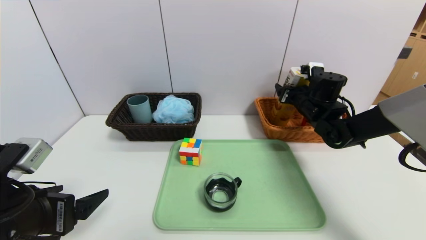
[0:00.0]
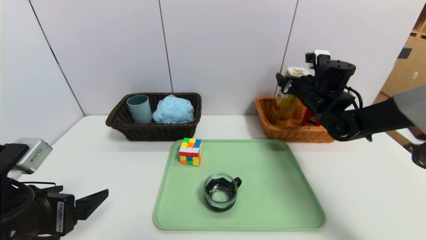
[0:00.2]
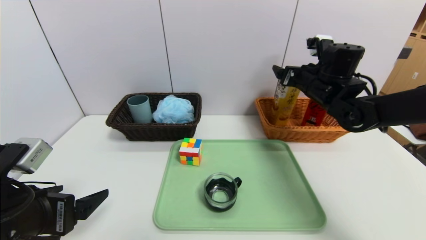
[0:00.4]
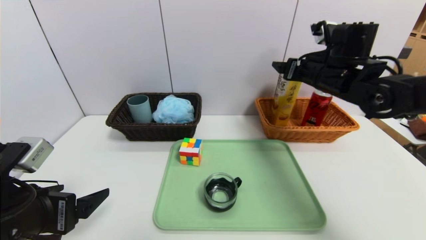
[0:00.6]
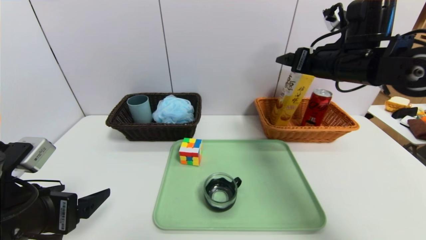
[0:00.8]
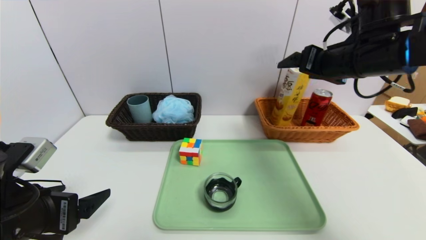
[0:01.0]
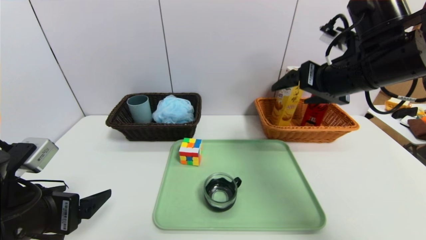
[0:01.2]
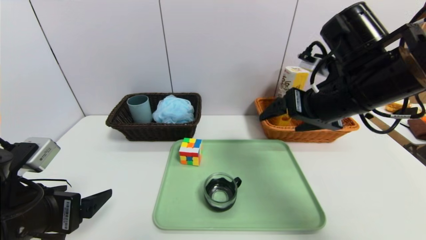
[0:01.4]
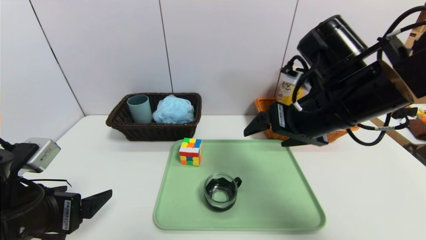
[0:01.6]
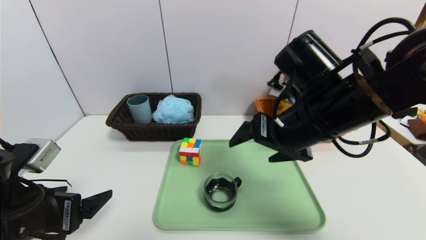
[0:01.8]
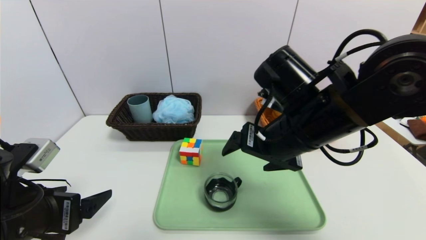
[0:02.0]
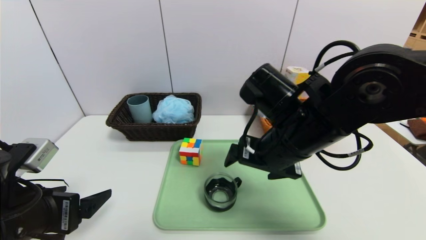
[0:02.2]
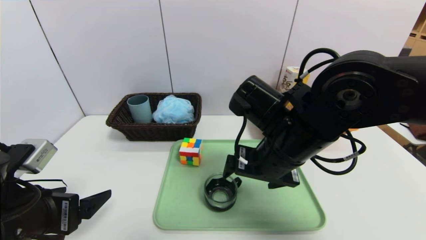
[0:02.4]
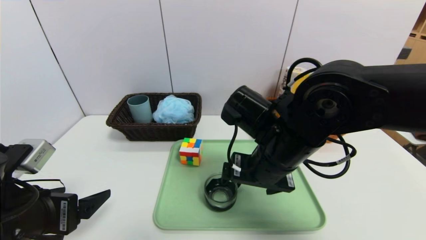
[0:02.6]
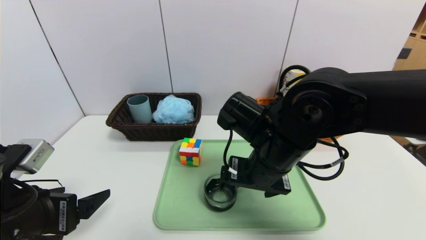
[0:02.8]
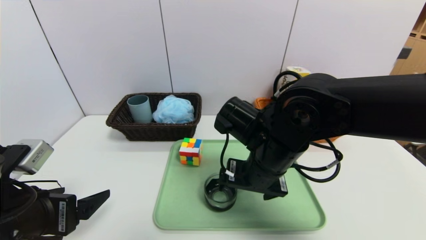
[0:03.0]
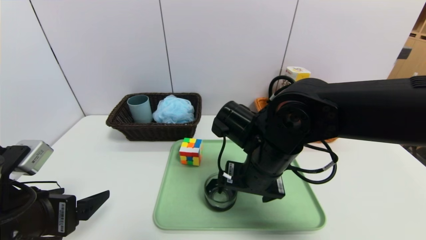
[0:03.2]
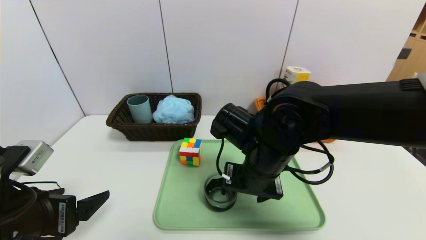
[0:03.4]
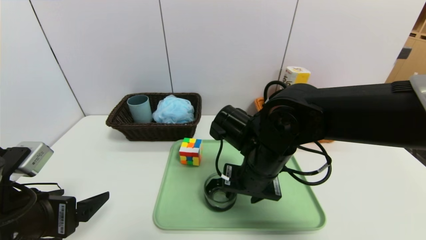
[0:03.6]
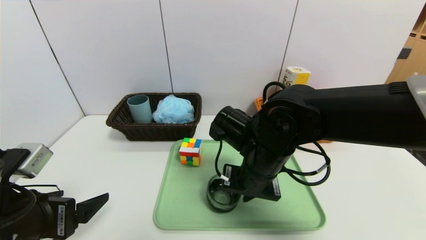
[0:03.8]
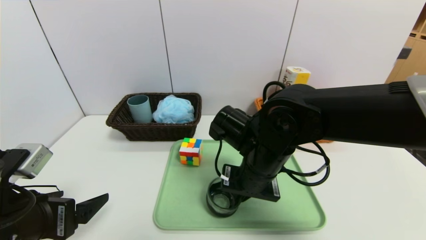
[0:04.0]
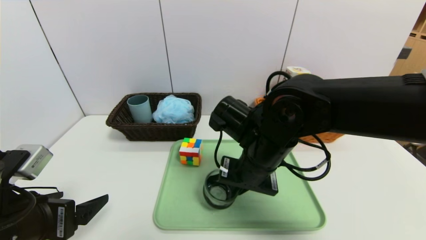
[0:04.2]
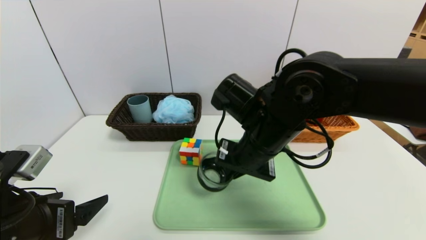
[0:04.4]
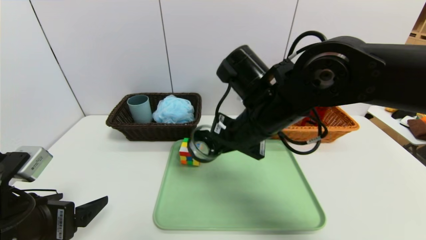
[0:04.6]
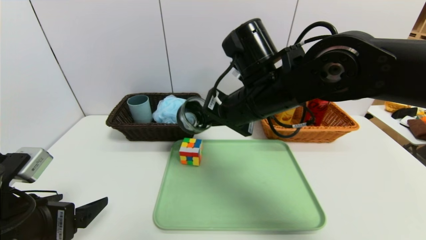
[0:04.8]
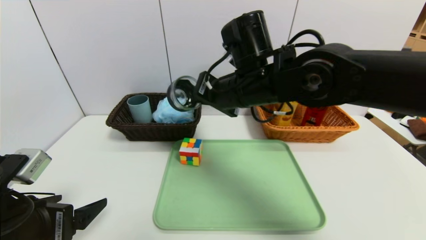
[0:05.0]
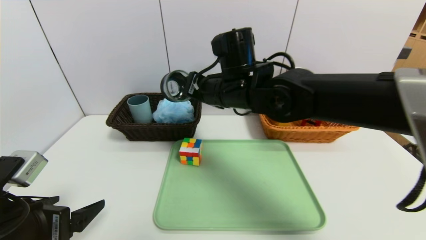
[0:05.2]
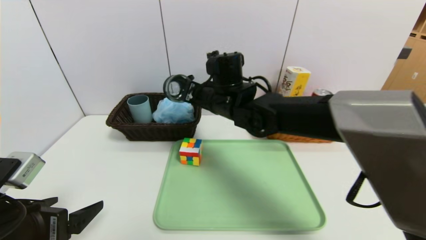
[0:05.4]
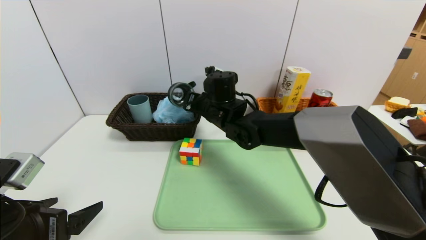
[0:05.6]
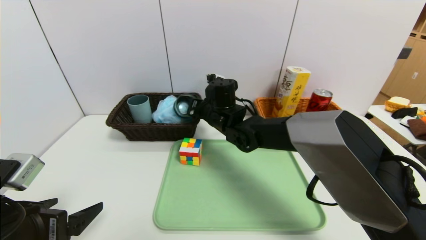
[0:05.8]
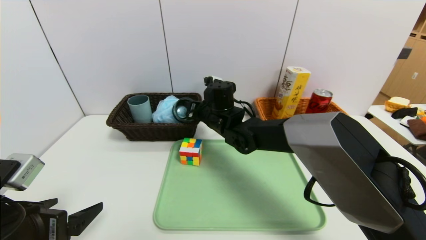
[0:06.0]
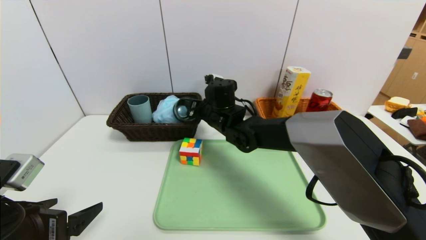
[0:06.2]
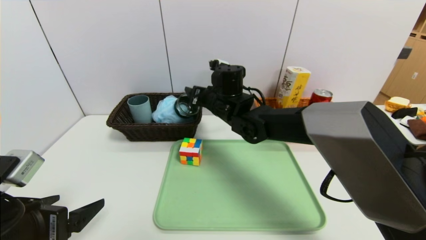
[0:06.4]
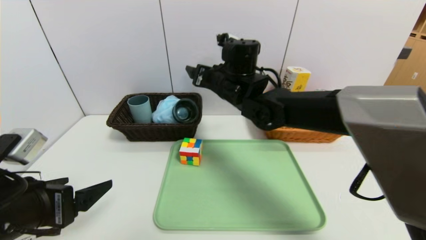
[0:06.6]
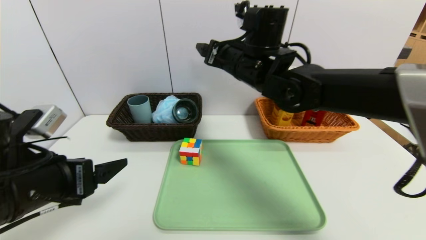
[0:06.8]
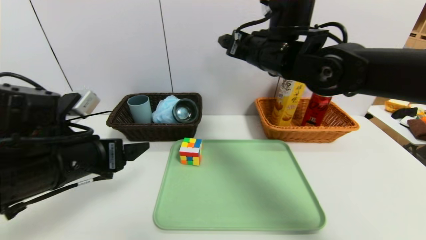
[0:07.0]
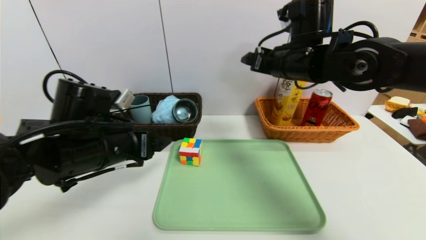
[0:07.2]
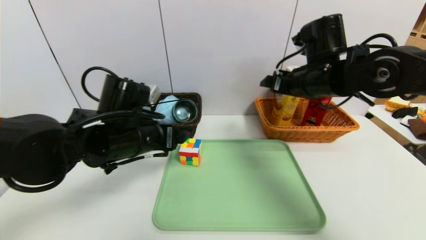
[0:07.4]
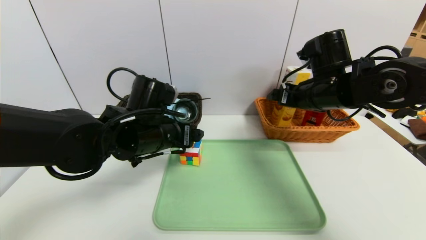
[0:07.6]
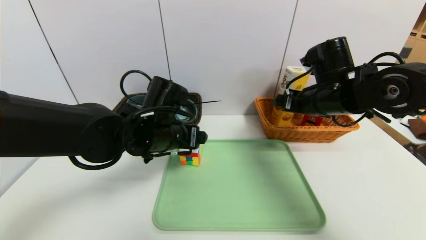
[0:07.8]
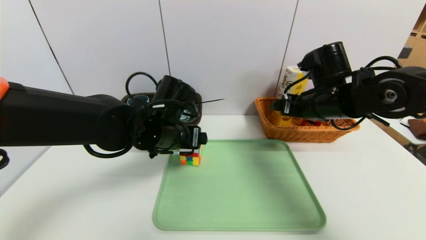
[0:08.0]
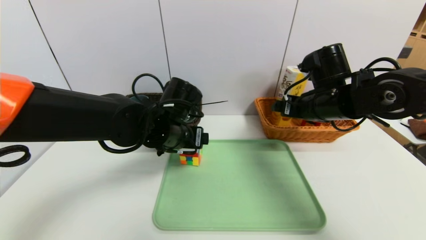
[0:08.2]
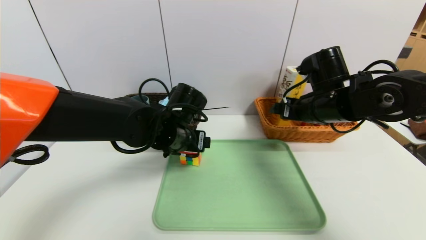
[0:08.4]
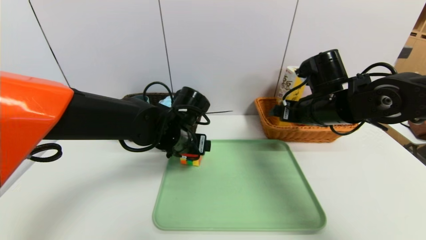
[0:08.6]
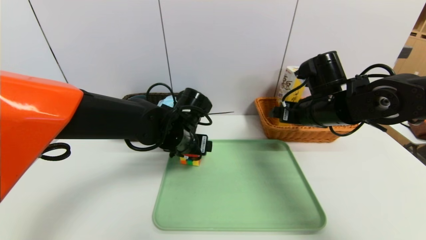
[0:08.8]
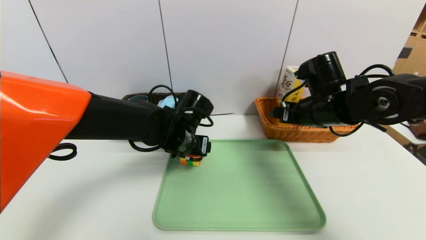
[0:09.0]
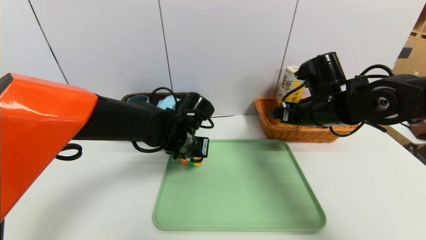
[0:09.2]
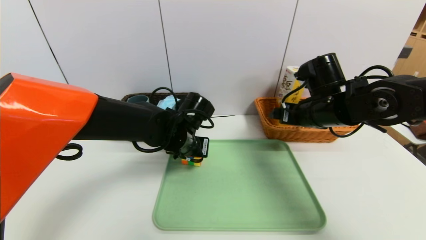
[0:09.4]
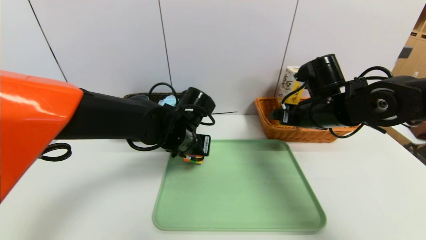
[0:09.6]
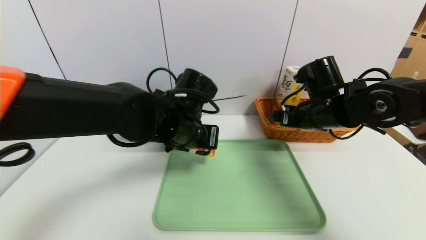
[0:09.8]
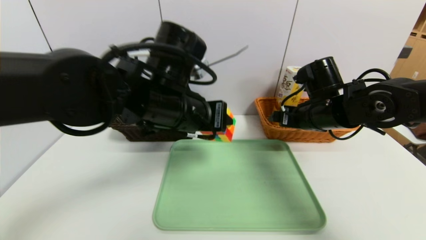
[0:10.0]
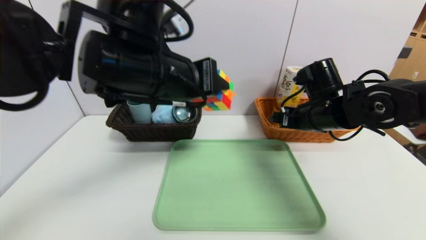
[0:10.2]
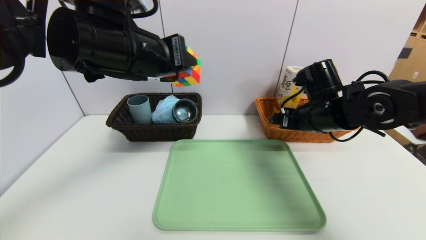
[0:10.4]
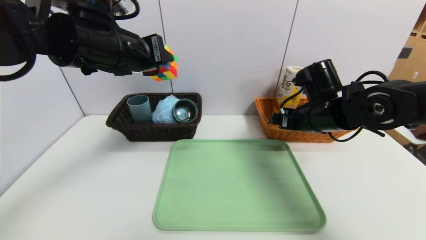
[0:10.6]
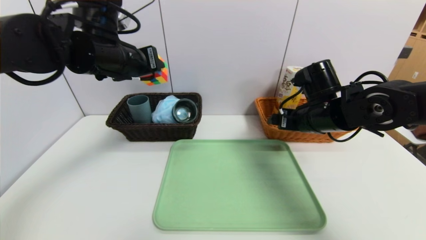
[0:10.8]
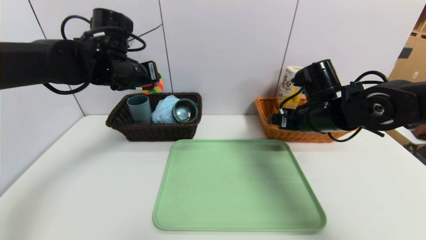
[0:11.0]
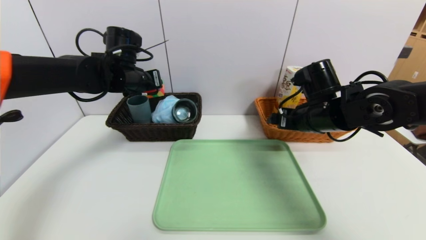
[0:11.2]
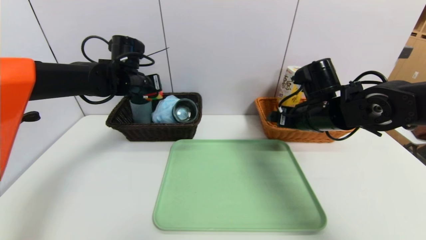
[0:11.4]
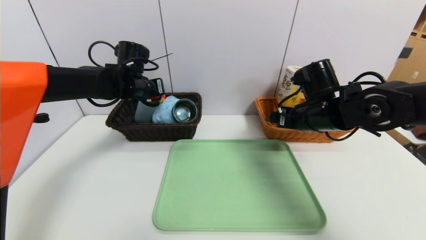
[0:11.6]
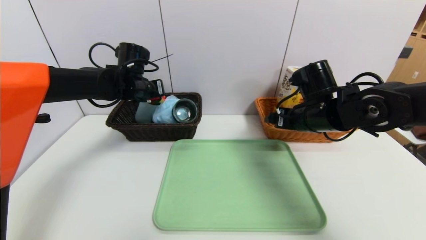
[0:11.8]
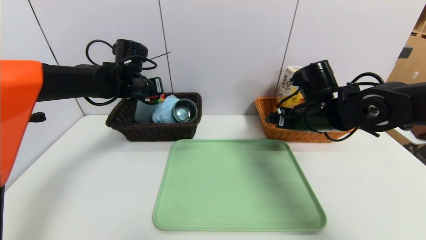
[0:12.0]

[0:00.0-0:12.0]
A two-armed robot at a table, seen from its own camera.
Task of the whole recording: place the food in the right basket with the right gripper, and place the non food items in the left basket with the left gripper.
Step, 0:00.8 to 0:07.2: Grasp the black glass cup and put it in the left basket.
0:00.0 to 0:01.6: The right gripper goes about 25 cm backward, upward and to the left.
0:01.6 to 0:03.0: The right gripper goes about 10 cm to the left and downward.
0:03.0 to 0:04.4: The right gripper closes.
0:04.4 to 0:06.0: The right gripper goes some 20 cm forward, to the left and downward, and opens.
0:06.0 to 0:07.6: The right gripper is displaced to the right and upward by some 20 cm, and opens. Meanwhile the left gripper is displaced forward and to the right by roughly 25 cm.
0:07.6 to 0:09.0: The left gripper shifts by some 10 cm.
0:09.0 to 0:10.4: The left gripper shifts approximately 20 cm upward, and closes.
0:10.4 to 0:12.0: The left gripper shifts some 20 cm forward, downward and to the left.

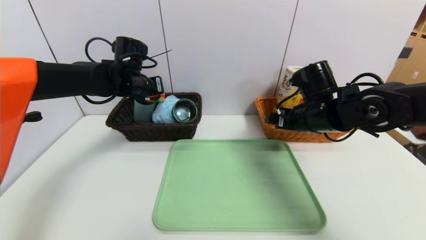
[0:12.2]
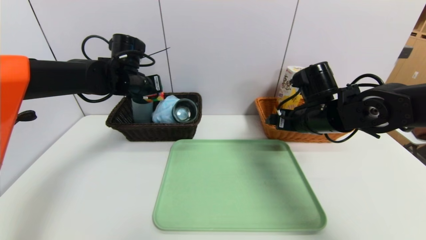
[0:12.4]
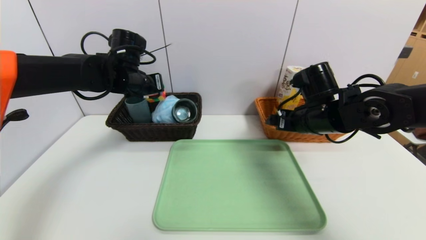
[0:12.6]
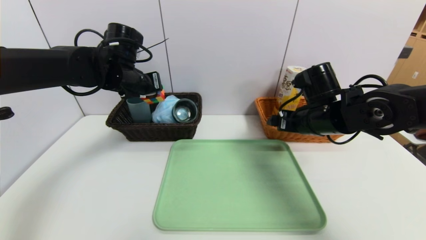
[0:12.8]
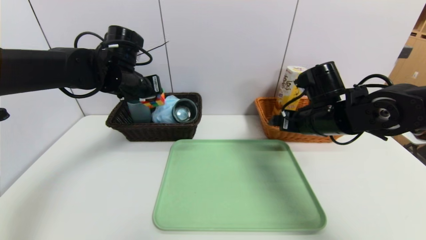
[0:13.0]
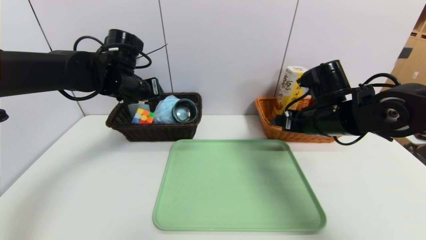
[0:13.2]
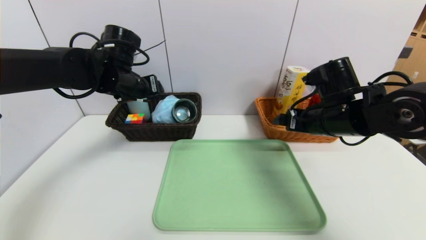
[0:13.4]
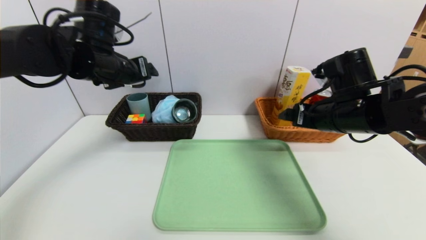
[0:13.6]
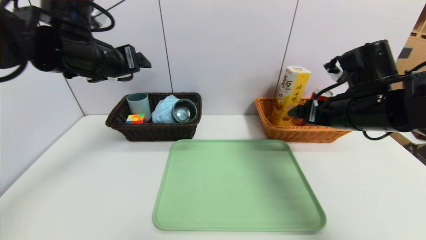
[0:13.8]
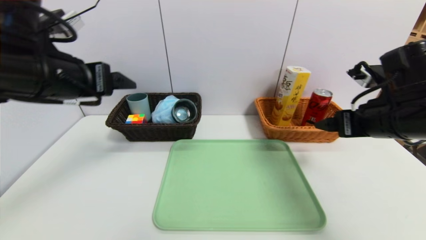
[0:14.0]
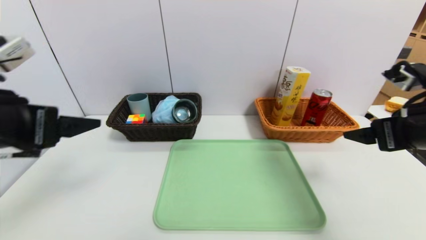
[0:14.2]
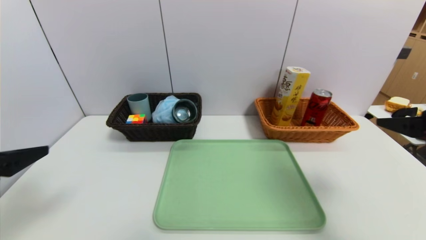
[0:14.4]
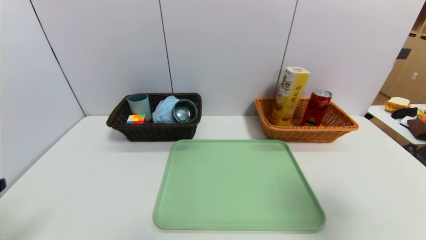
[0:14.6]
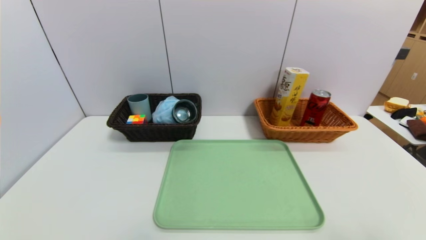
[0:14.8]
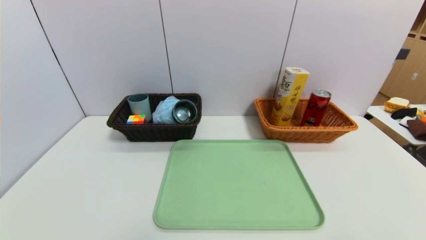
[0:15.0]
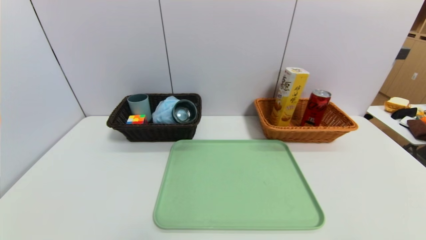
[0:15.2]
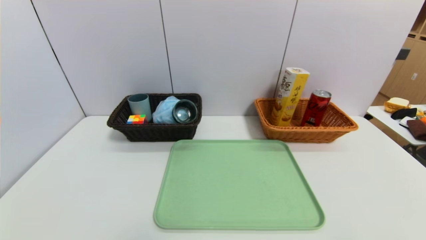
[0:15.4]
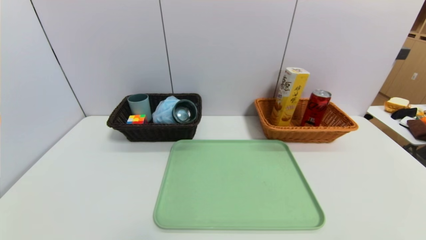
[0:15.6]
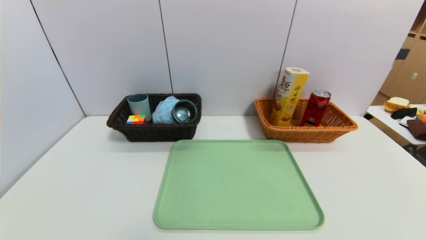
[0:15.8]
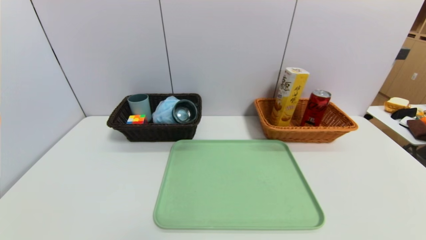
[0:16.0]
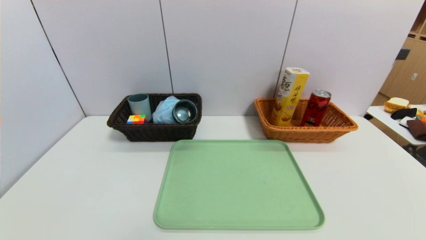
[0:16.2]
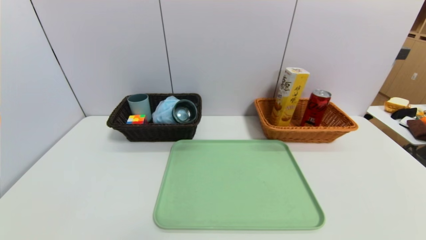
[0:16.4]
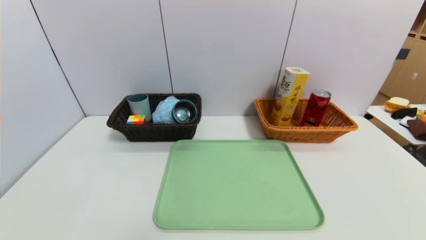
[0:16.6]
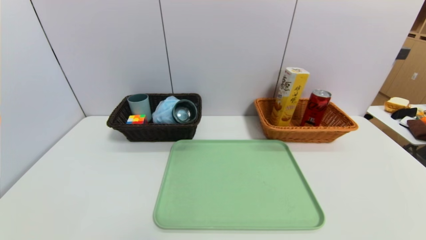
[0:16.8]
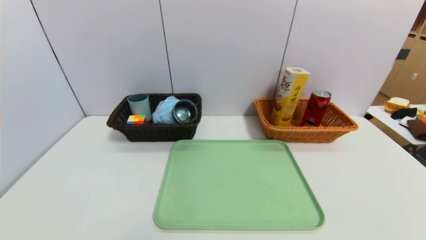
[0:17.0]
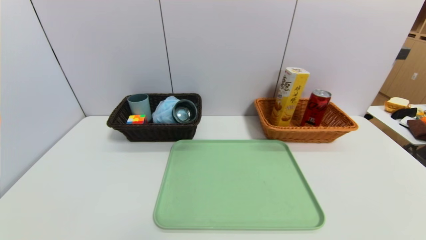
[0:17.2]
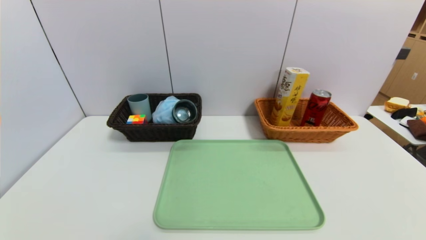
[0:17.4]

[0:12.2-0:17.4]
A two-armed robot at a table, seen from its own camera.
Task of the whole recording: place the food in the right basket with the right gripper, and place the non food items in the left basket with the left gripper.
0:12.2 to 0:14.0: The left gripper heads backward, covering about 20 cm, and opens; the right gripper is displaced backward and to the right by some 10 cm.
0:14.0 to 0:15.6: The right gripper moves backward, about 25 cm; the left gripper is displaced backward and downward by approximately 30 cm.
